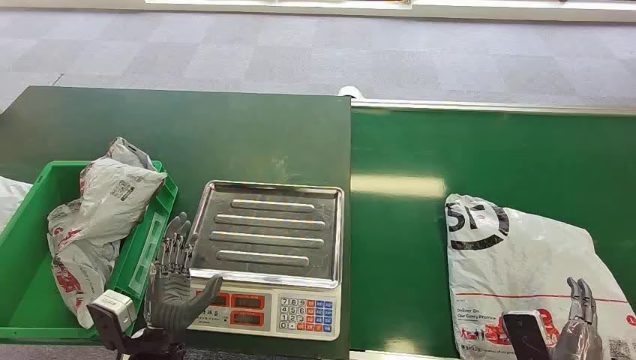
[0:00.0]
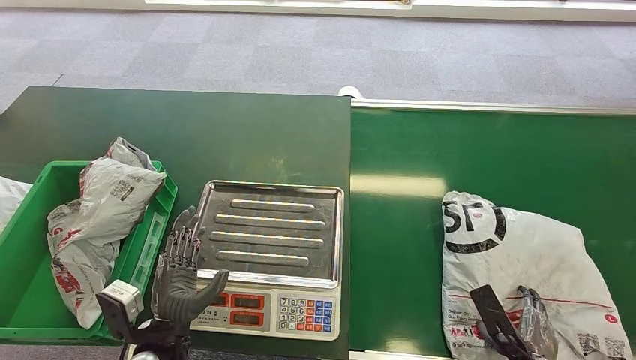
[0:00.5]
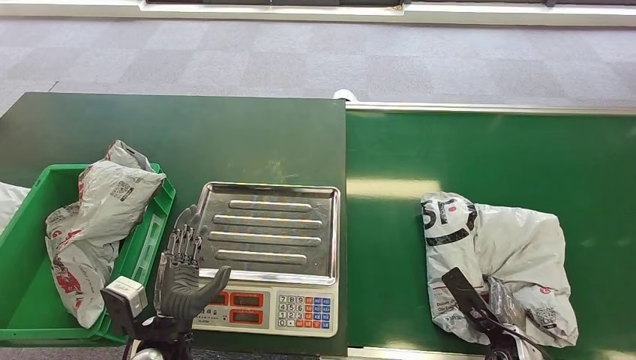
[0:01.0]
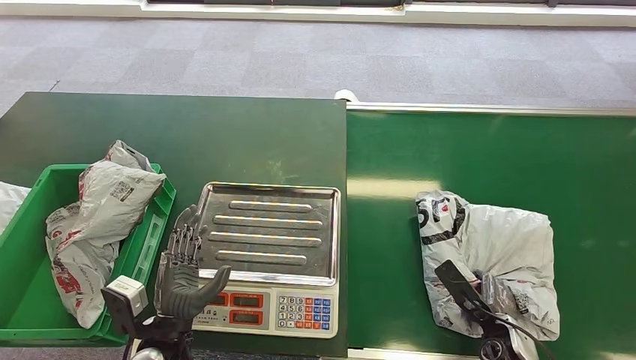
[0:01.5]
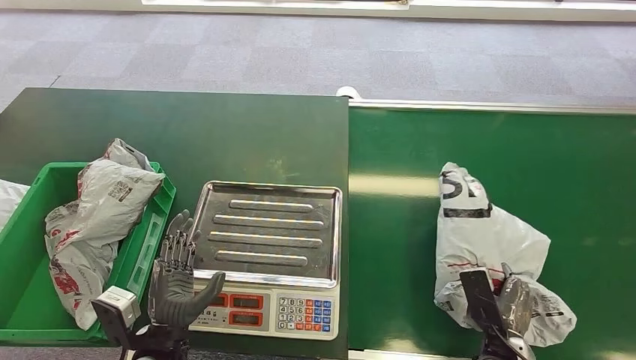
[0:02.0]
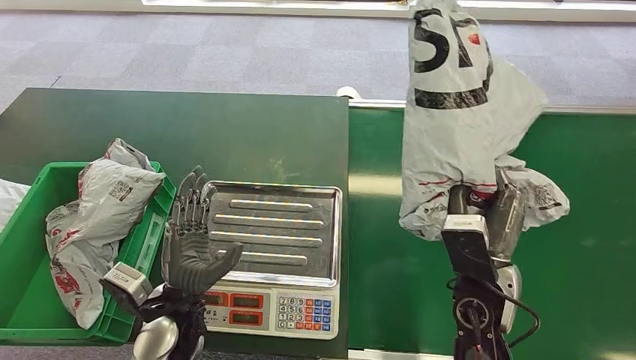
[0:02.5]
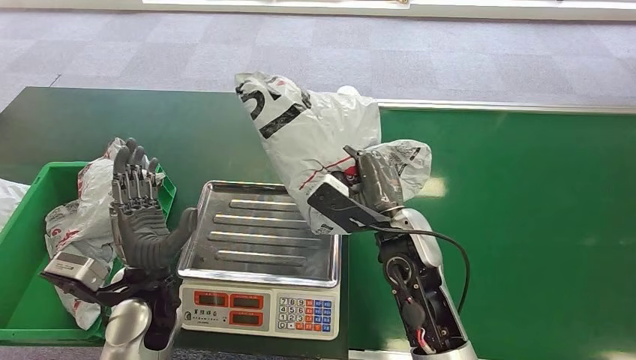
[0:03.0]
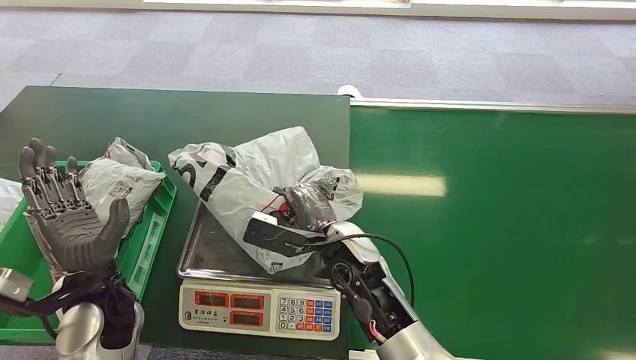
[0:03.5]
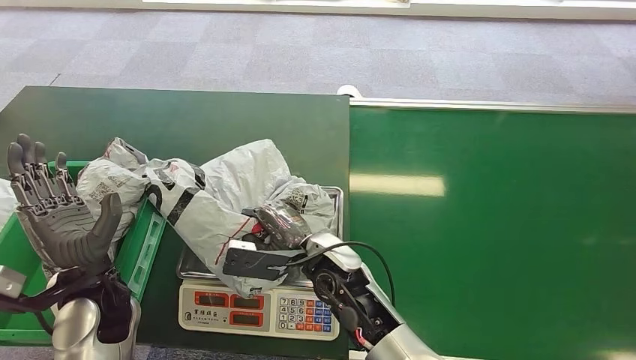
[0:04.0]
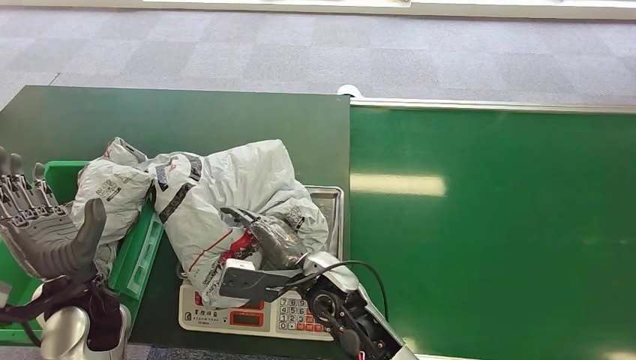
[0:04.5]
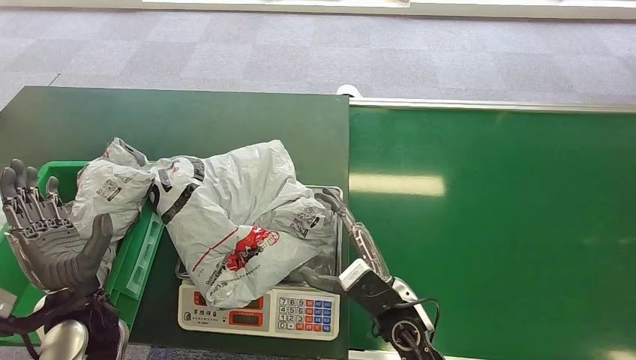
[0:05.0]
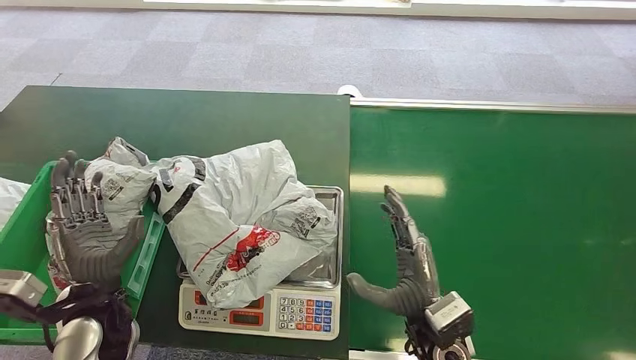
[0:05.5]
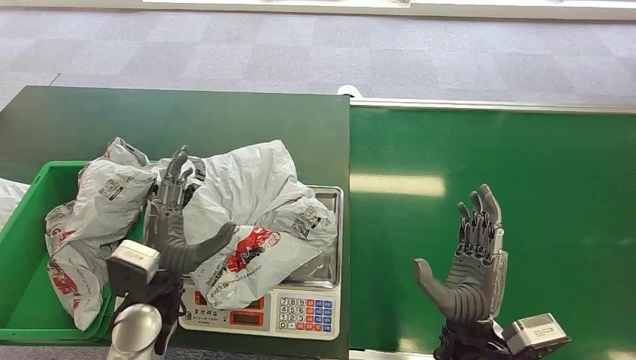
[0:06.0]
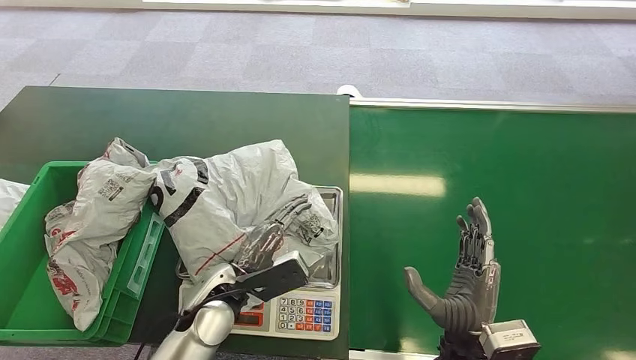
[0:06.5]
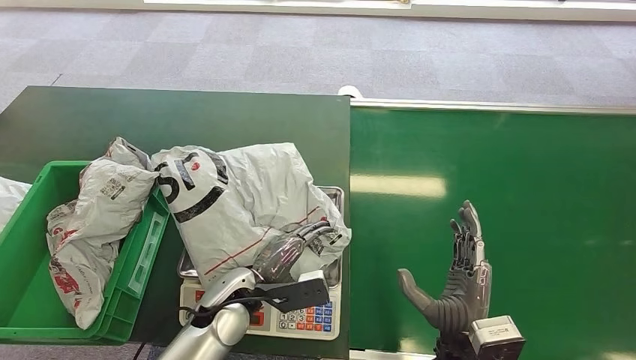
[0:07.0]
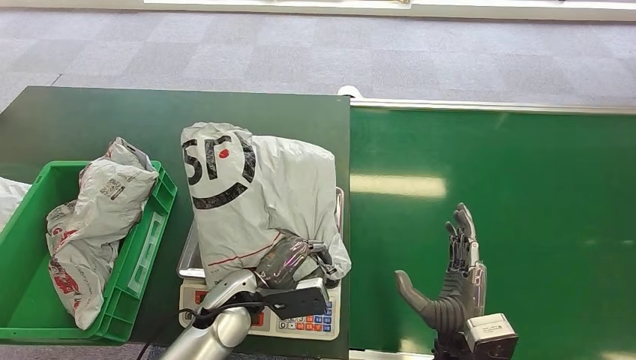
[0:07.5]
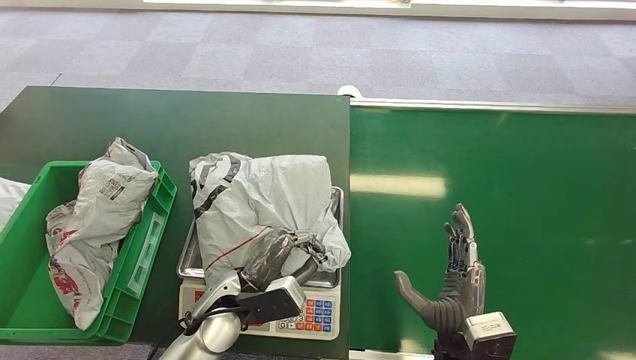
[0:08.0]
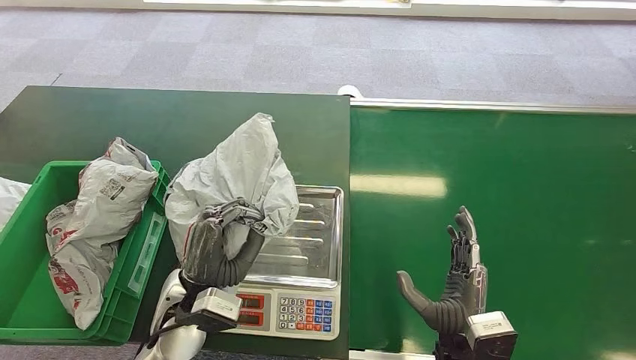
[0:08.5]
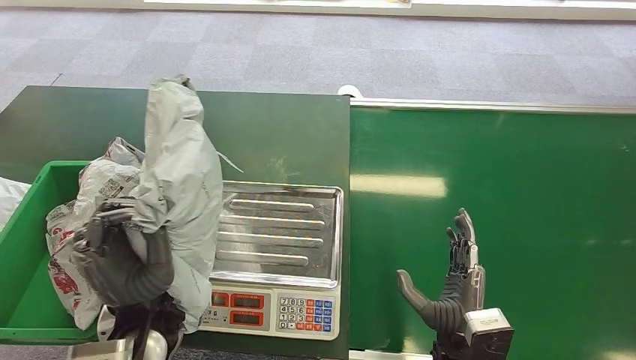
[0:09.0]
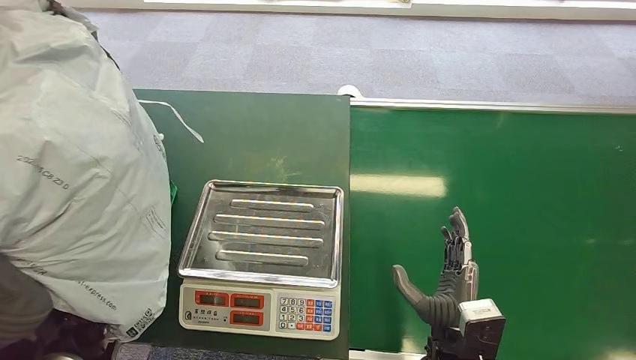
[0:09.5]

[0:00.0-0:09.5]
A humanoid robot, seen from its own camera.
Step, 0:00.0 to 0:02.5: Pick up the package from the conveyor belt.
Step, 0:03.0 to 0:04.5: Place the package onto the inbound machine.
Step, 0:05.0 to 0:07.5: Pick up the package from the inbound machine.
0:04.0 to 0:05.5: The right hand goes some 15 cm to the right and backward.

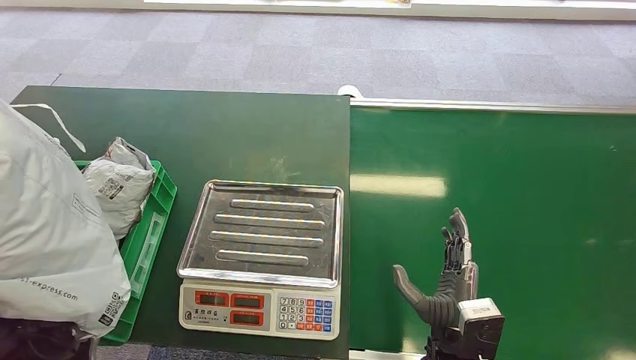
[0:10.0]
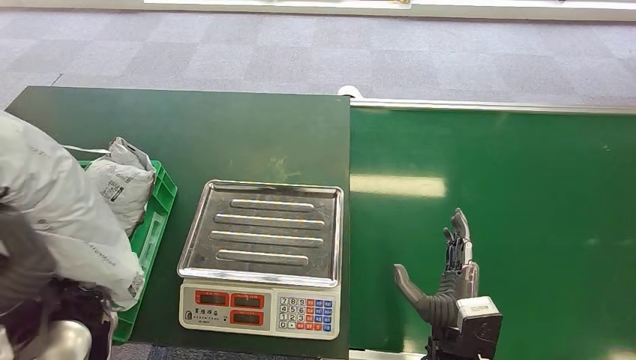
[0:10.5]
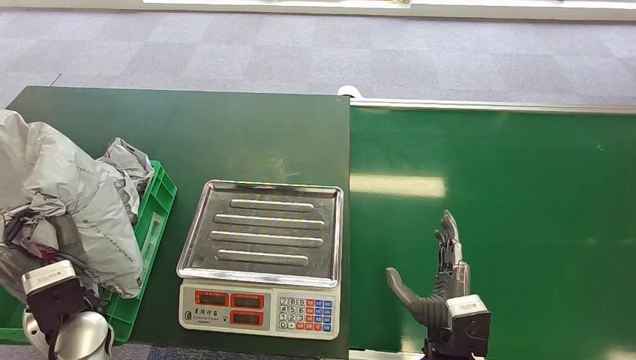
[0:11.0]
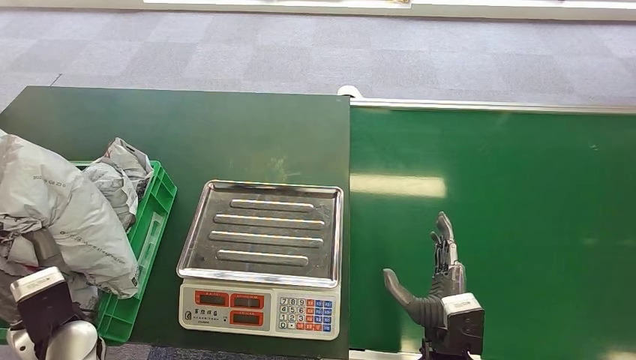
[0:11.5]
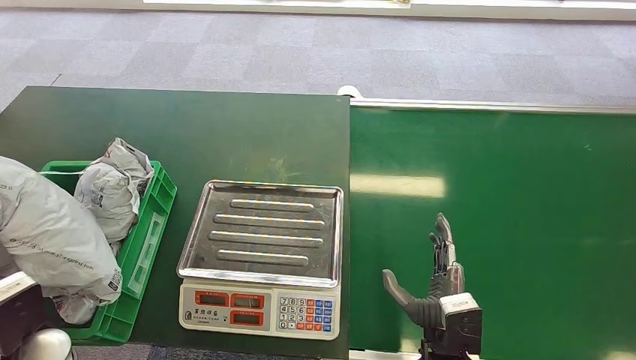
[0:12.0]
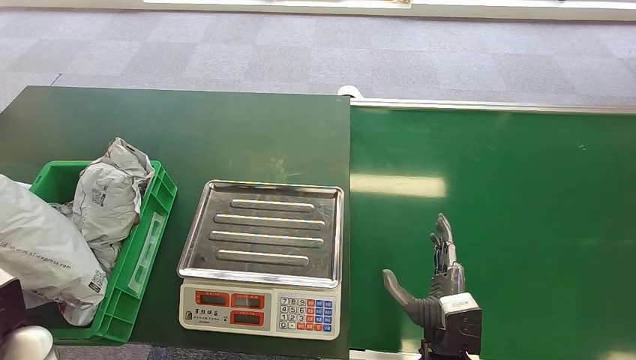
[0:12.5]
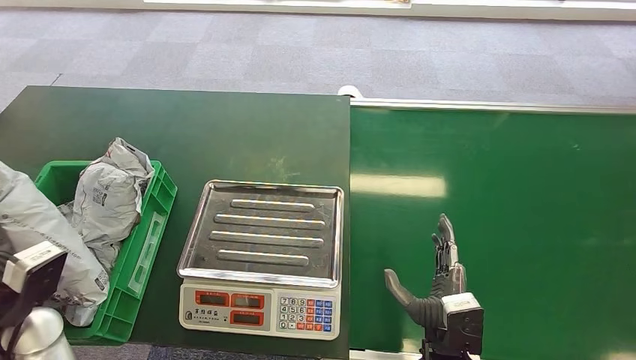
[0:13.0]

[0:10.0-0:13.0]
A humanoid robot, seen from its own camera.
Step, 0:10.0 to 0:13.0: Place the package into the parcel locker.
0:10.0 to 0:11.5: The left hand is displaced downward and to the left by about 15 cm.
0:11.5 to 0:13.0: The left hand is displaced upward by approximately 5 cm.
